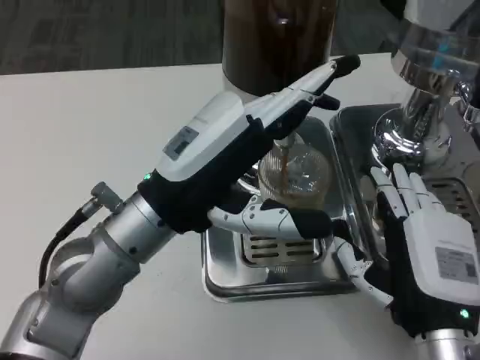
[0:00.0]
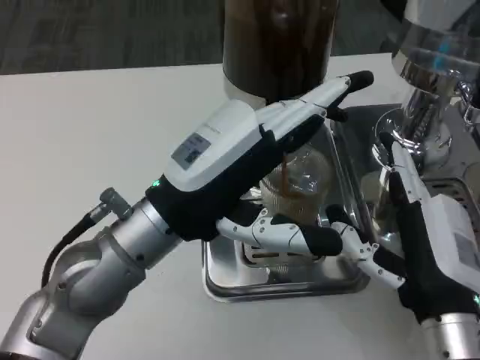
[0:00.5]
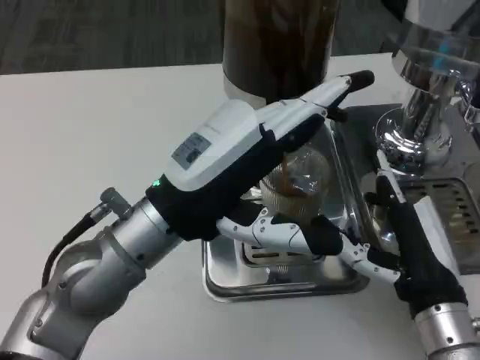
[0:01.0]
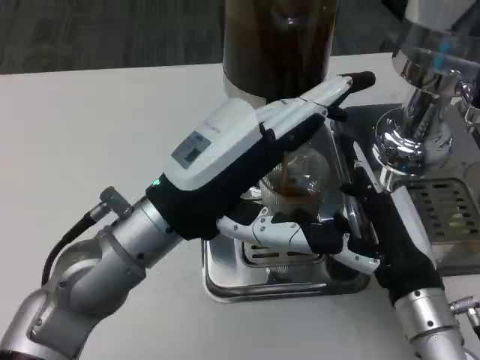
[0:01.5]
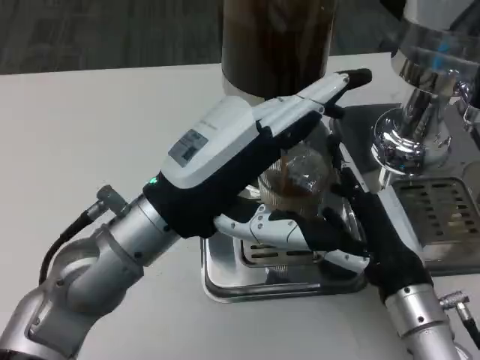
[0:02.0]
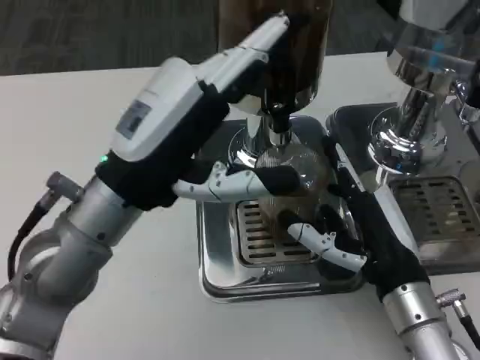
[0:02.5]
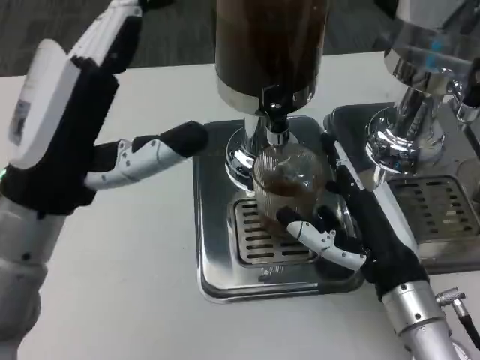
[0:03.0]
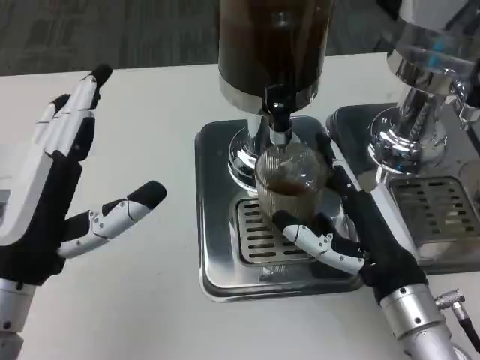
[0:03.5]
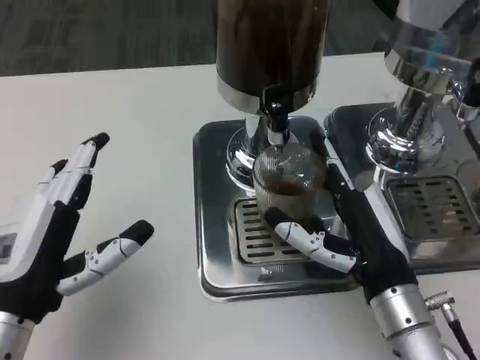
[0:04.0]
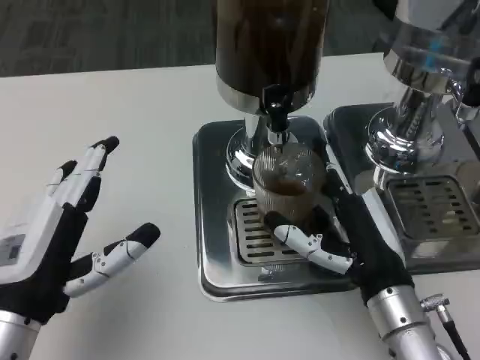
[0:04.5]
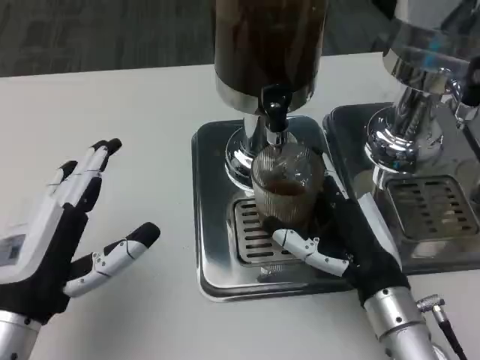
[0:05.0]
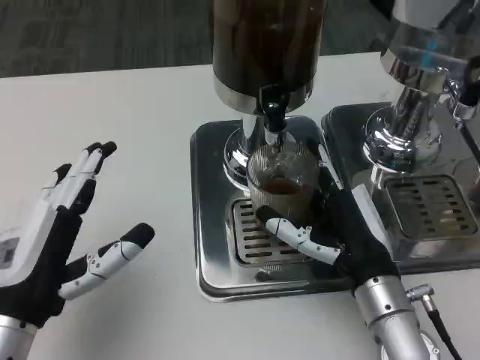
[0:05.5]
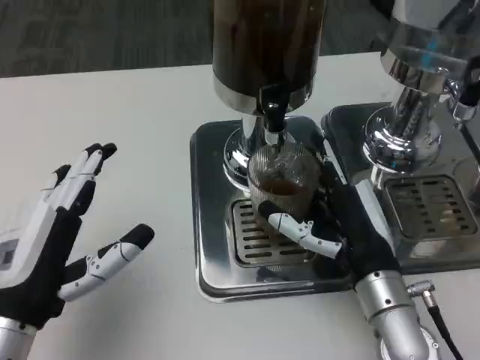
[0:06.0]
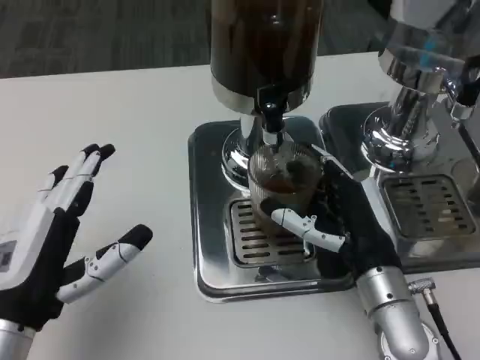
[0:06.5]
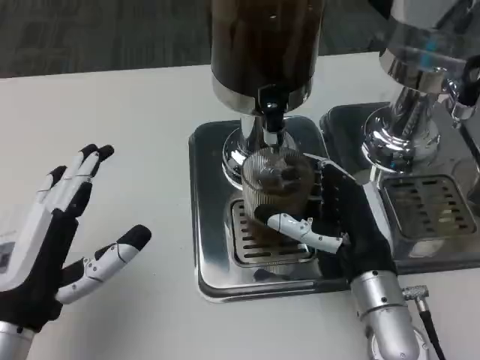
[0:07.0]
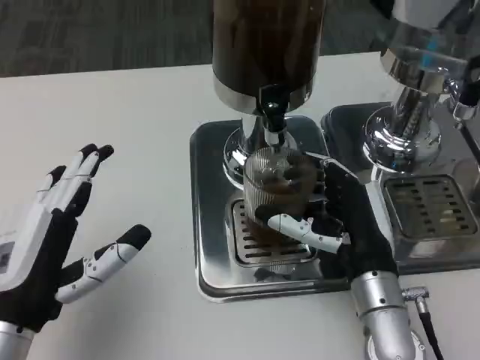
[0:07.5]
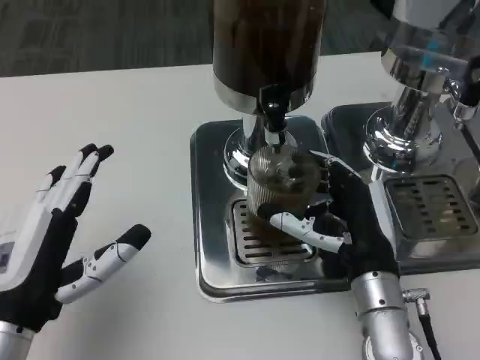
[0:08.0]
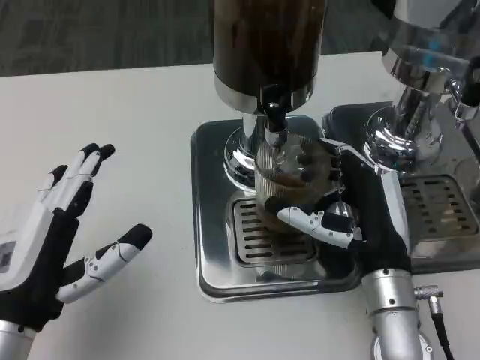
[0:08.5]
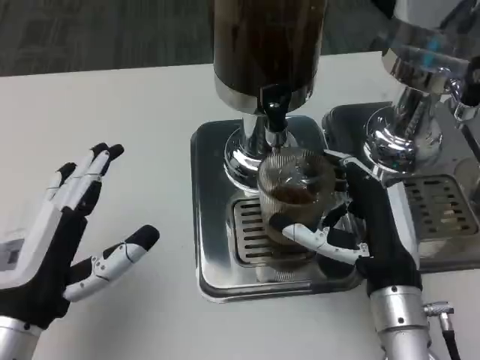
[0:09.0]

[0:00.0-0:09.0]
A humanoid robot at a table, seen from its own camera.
Task of the whole recording: Grasp the cup under the faucet to collect the drink, then remove the cup.
0:00.0 to 0:02.0: The right hand is displaced forward by some 5 cm.
0:02.0 to 0:04.5: The left hand shifts approximately 15 cm to the left, downward and backward.

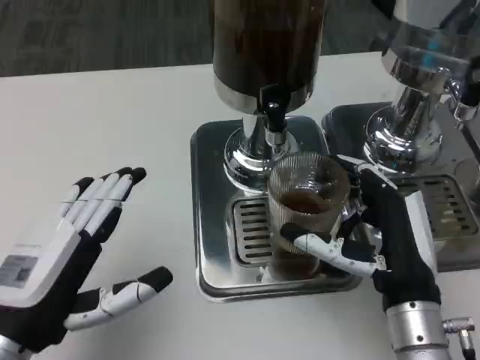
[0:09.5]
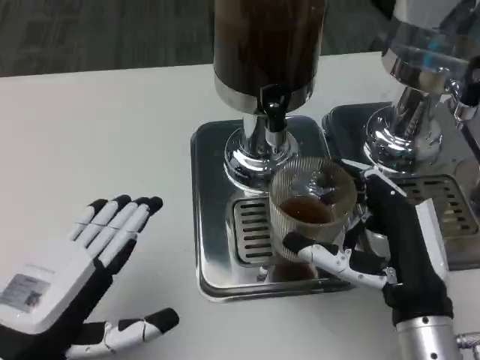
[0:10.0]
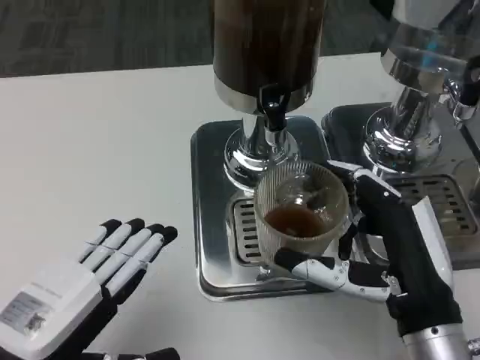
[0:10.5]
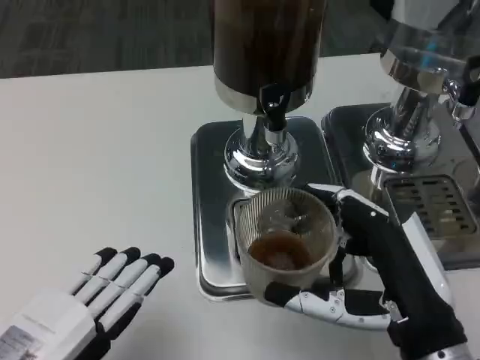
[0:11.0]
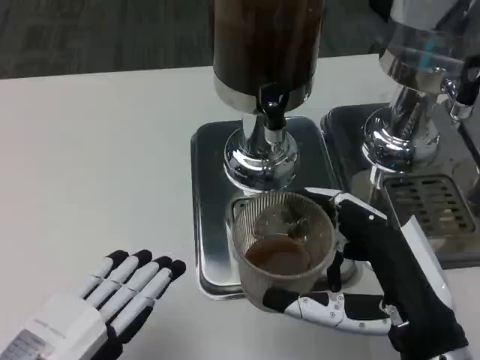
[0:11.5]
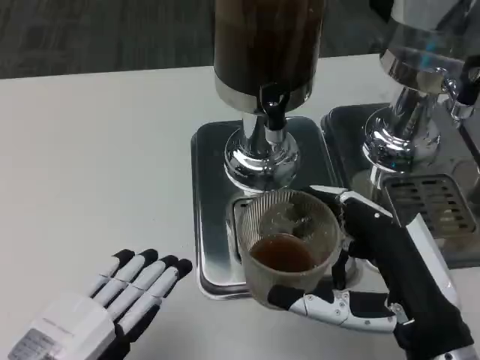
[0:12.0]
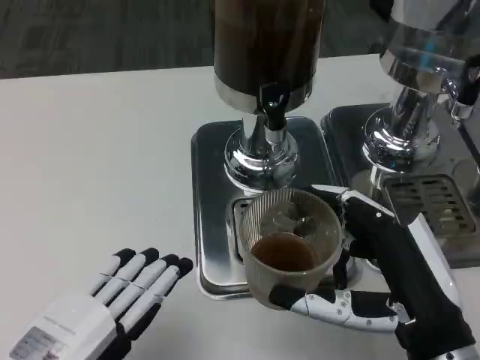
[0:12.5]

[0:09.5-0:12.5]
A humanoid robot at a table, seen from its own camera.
Task of the whole recording: Grasp the cup under the faucet to collect the drink, then remove the cup.
0:09.5 to 0:11.0: Both hands move backward, about 5 cm.
0:11.0 to 0:12.5: The hands move only a little.
